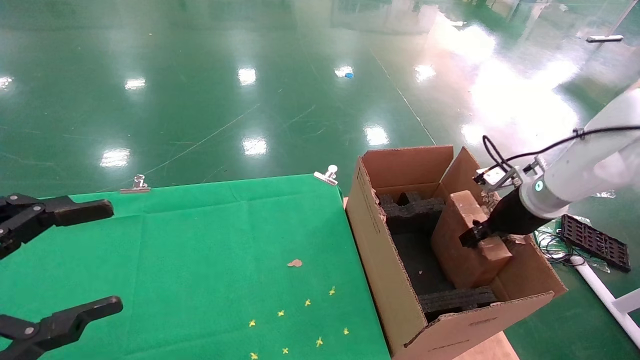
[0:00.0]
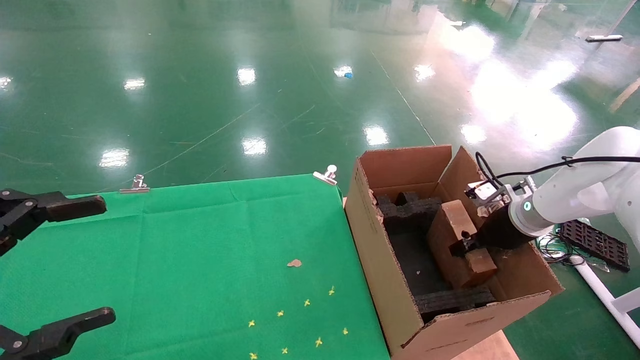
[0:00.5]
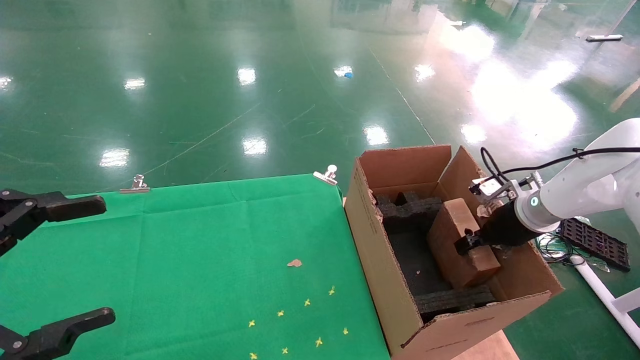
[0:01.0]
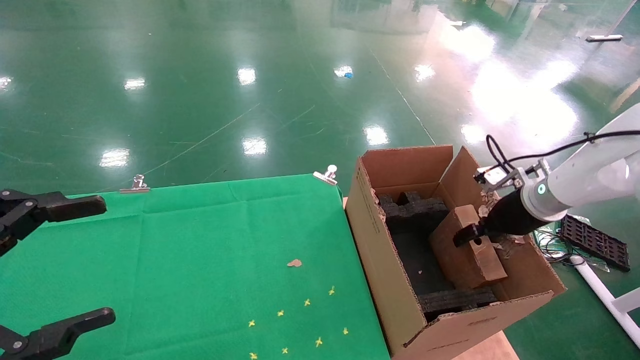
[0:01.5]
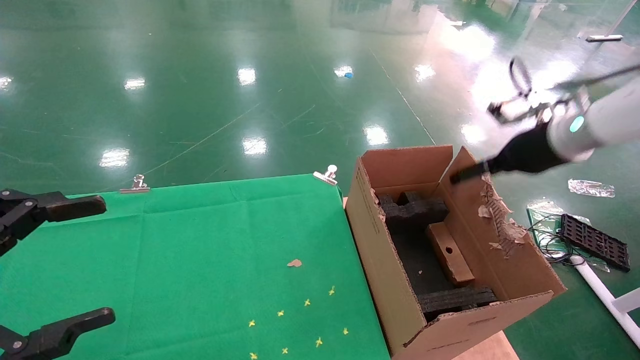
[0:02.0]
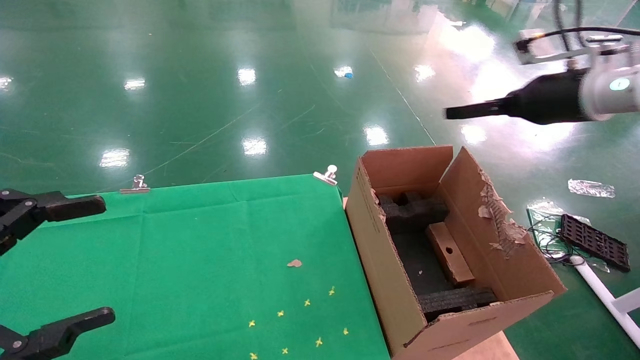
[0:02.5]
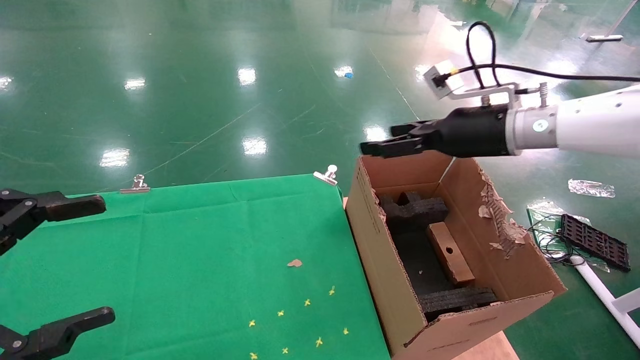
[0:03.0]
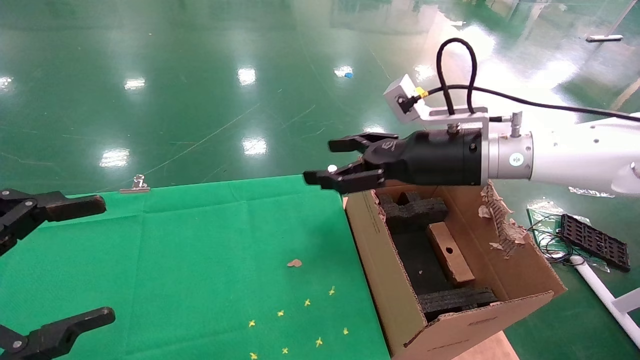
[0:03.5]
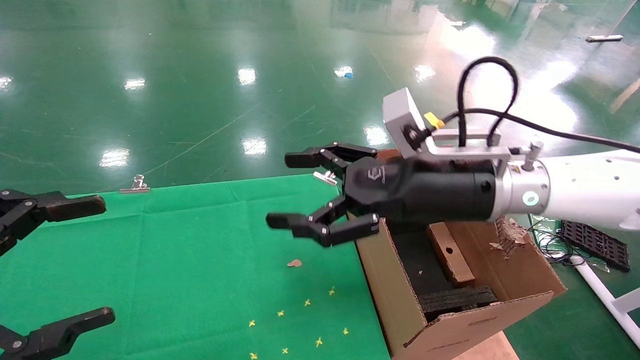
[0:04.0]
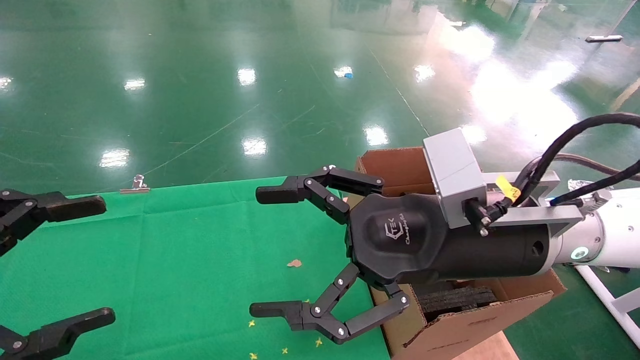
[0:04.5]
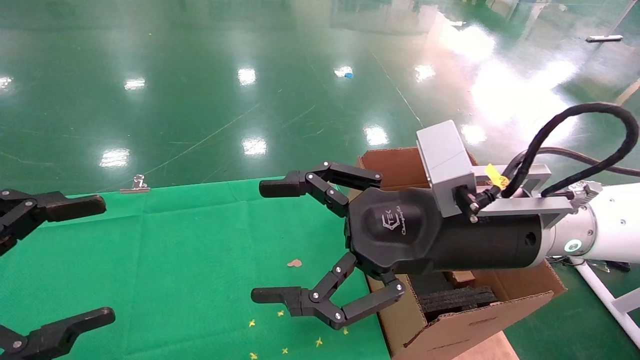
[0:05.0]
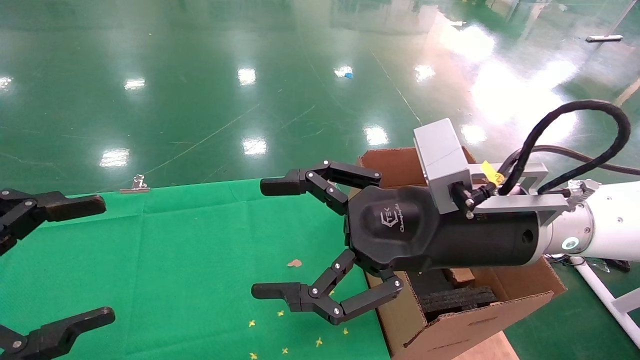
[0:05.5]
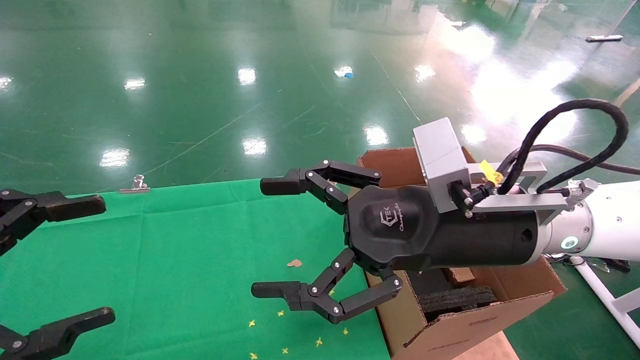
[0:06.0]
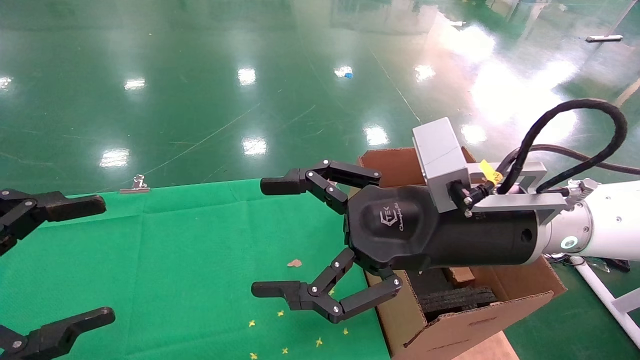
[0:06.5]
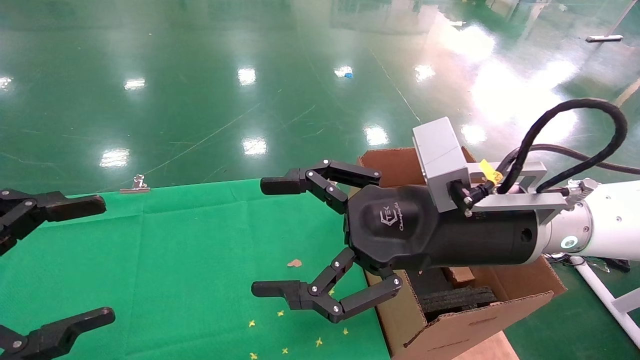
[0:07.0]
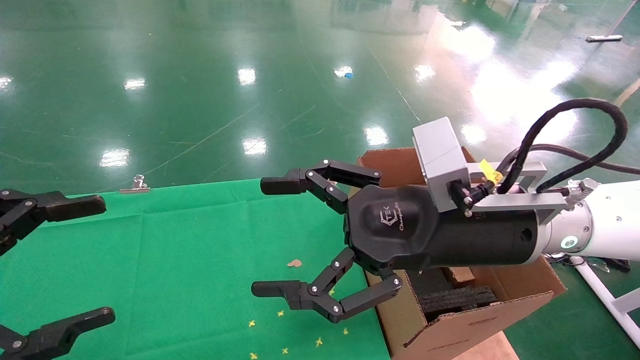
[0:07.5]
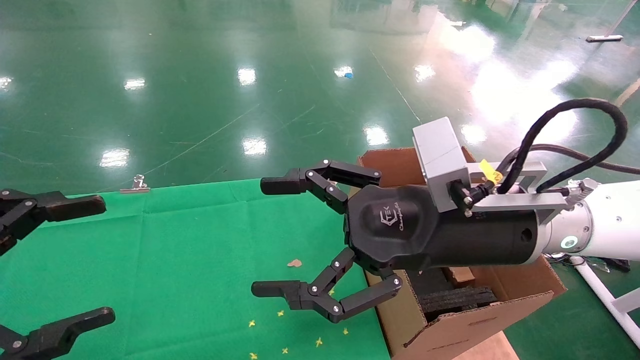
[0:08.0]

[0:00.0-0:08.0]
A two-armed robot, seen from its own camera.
Task of the whole recording: using a robotic arm to pick up a cardboard box and palace it the carton.
Step, 0:00.0 to 0:02.5: Place the mouse and the power cord paper box into the container.
0:00.0 to 0:02.0: The right gripper is displaced upward by about 10 cm, and opens.
0:02.0 to 0:04.0: The right gripper shifts approximately 25 cm to the left and backward.
0:04.0 to 0:06.0: The right gripper heads backward, covering about 5 cm.
0:06.0 to 0:08.0: Both grippers stay about where they are.
